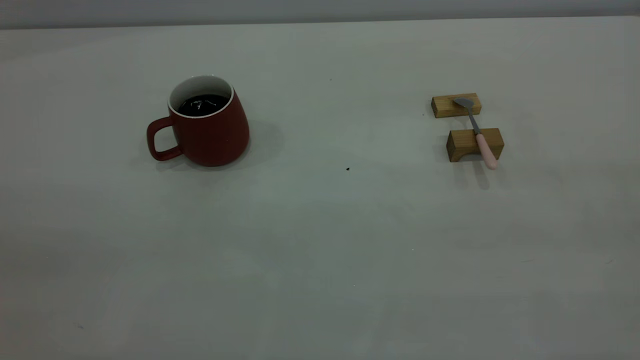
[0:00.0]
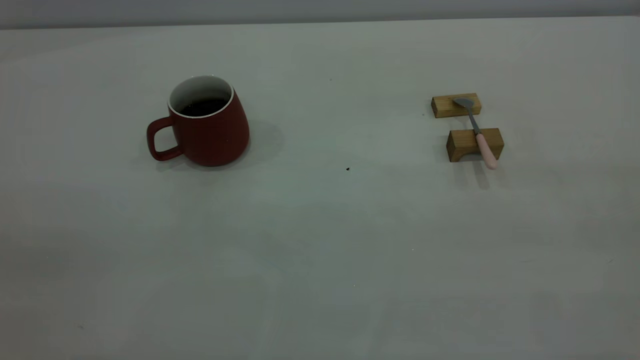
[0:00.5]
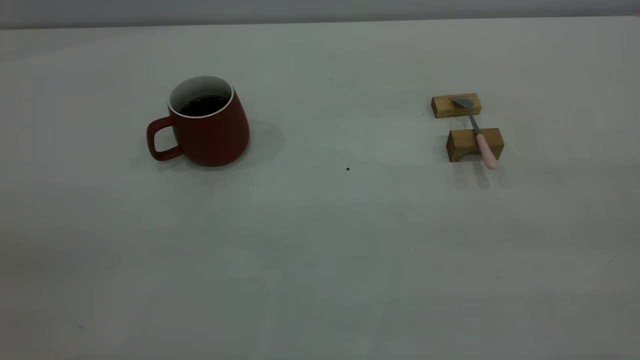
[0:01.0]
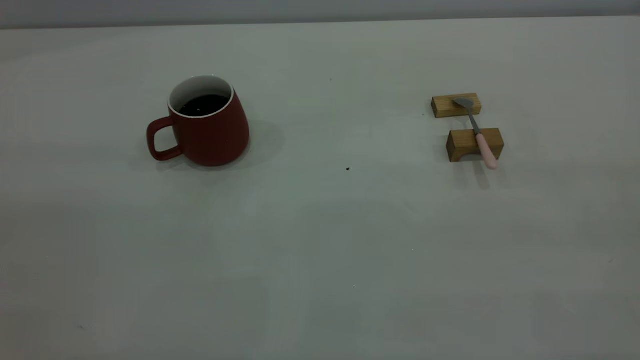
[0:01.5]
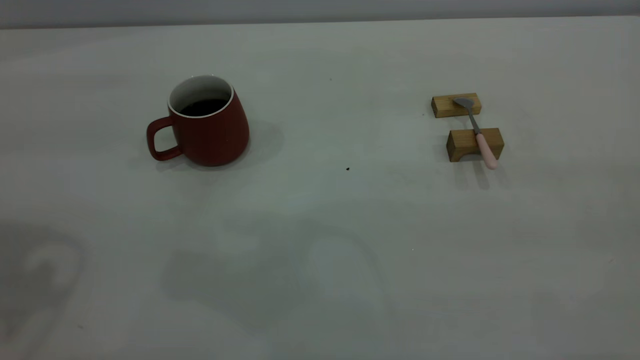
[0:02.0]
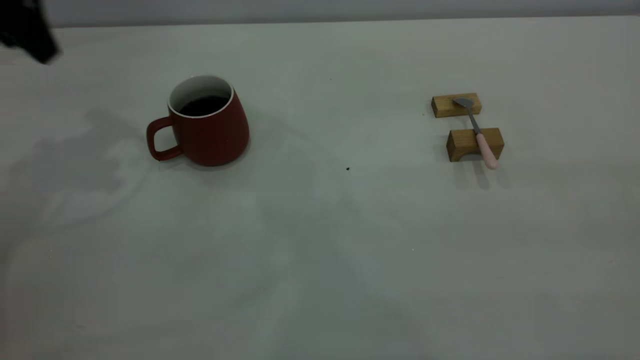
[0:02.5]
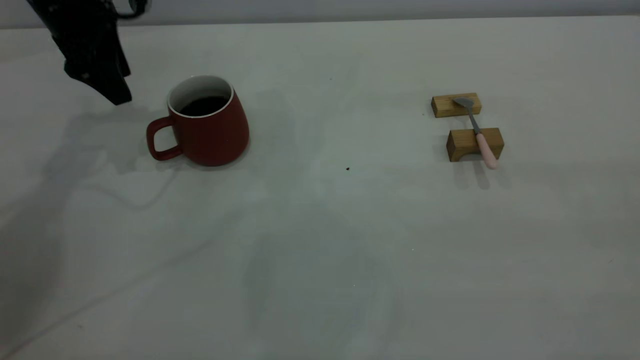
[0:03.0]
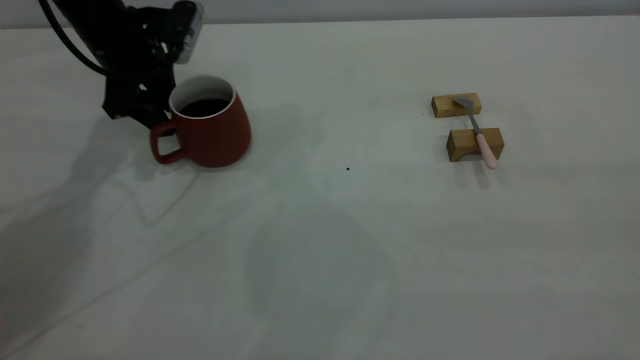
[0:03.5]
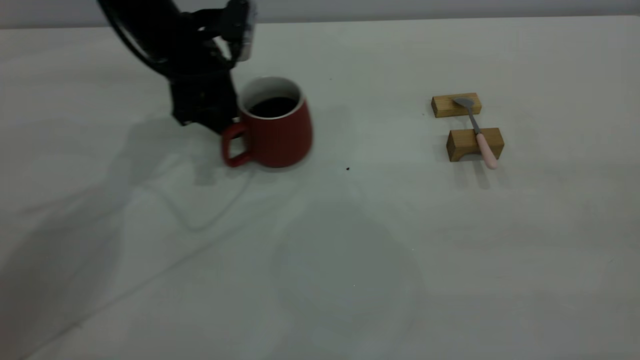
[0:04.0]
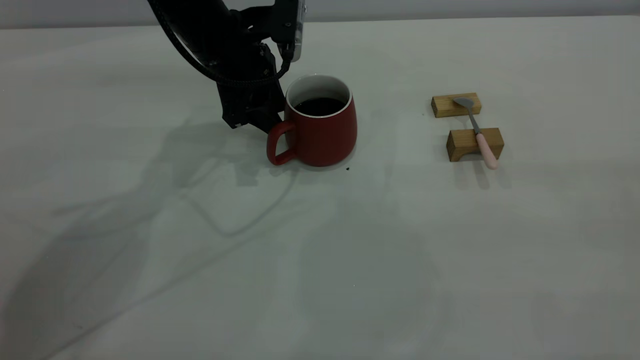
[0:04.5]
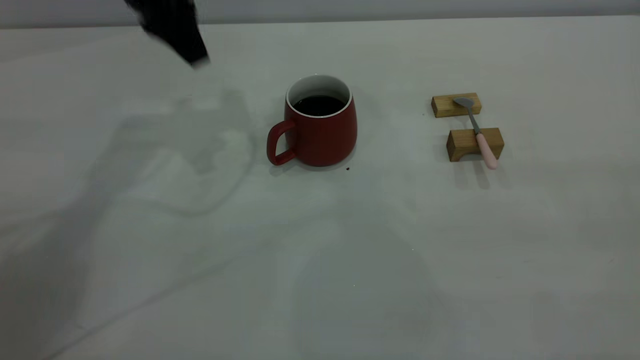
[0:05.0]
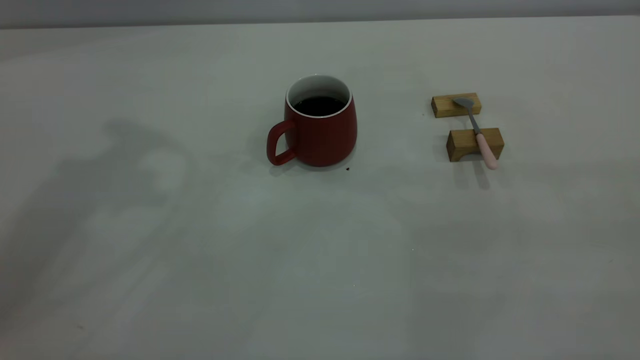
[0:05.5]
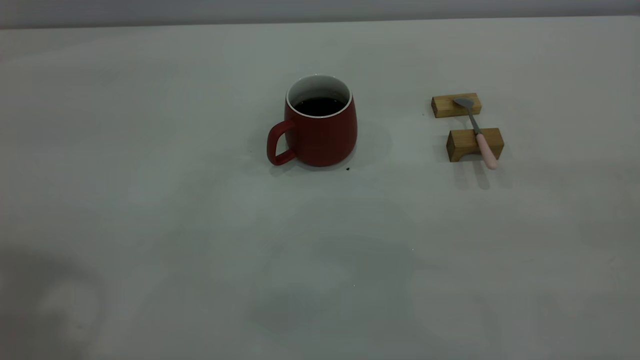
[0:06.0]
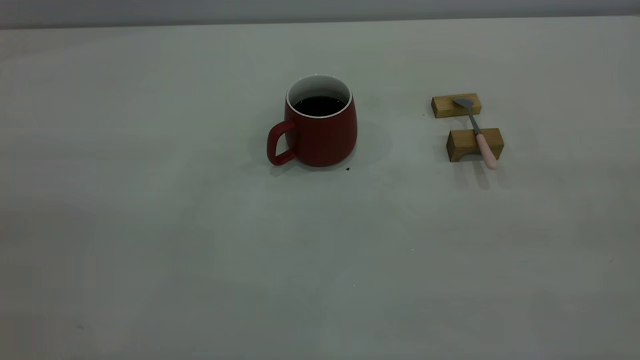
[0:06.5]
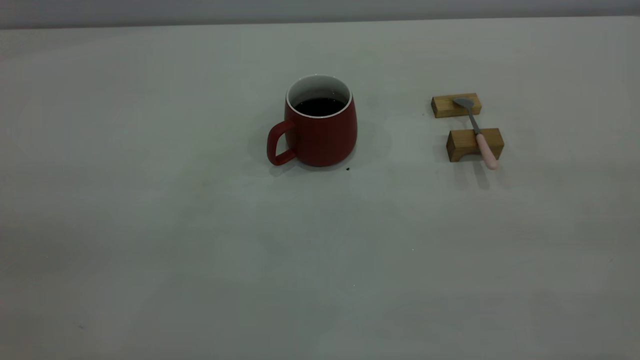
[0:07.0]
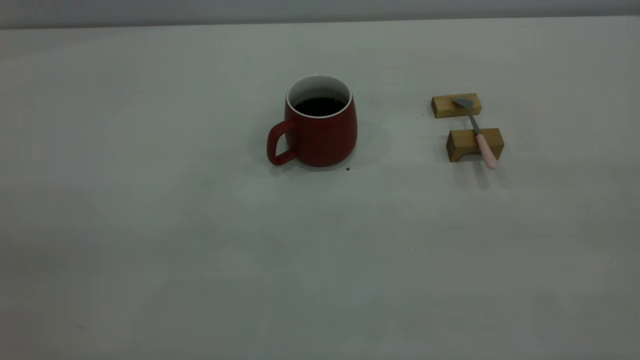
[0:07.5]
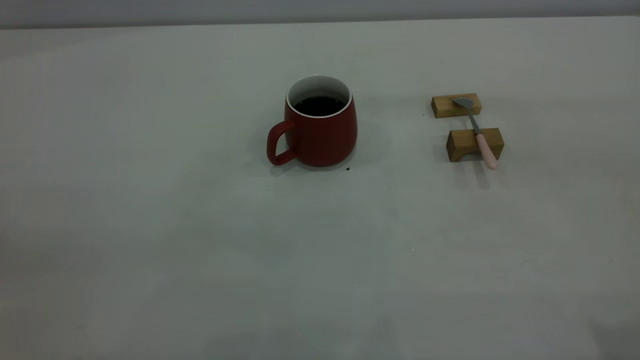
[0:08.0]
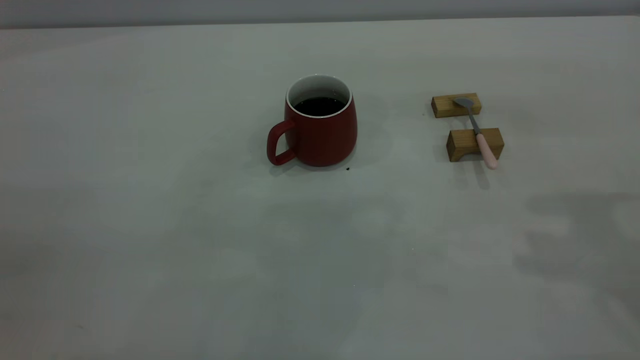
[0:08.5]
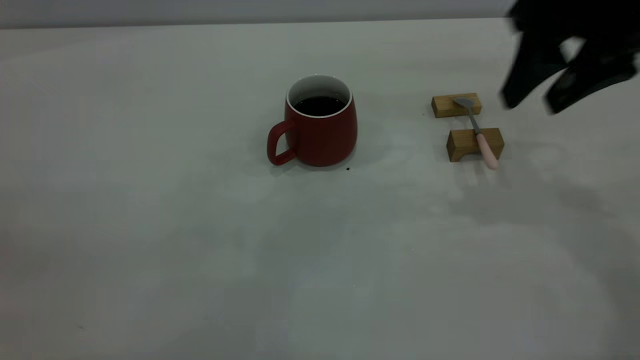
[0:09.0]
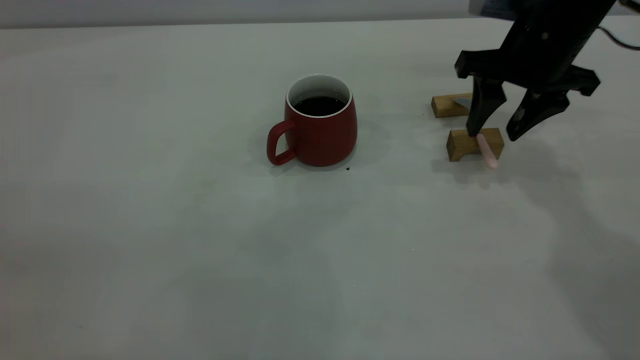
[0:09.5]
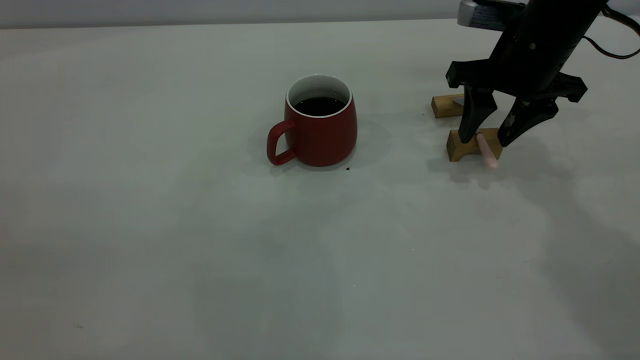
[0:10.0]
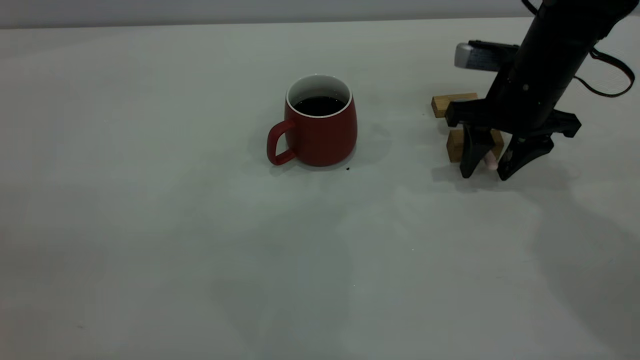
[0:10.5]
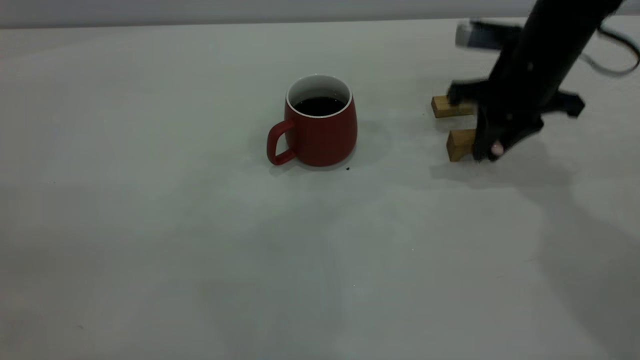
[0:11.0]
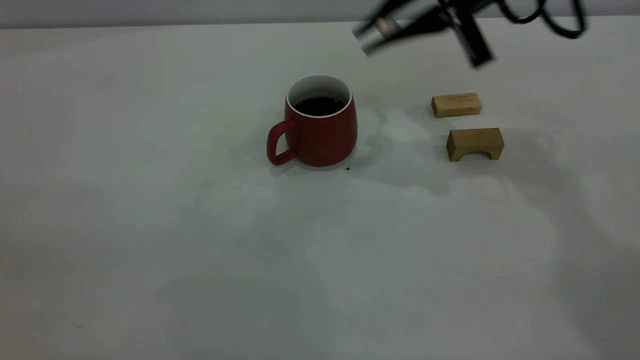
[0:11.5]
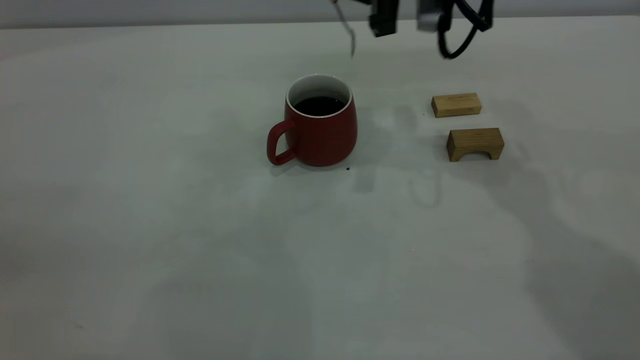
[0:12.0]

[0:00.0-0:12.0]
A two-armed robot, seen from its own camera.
Step, 0:00.0 to 0:04.5: Move the cup with coffee to the center of view.
Step, 0:05.0 to 0:11.0: Pick up the spoon.
0:02.0 to 0:04.0: The left gripper travels forward, downward and to the right by approximately 35 cm, and closes its fingers.
0:04.0 to 0:06.0: The left gripper moves upward and backward, roughly 40 cm.
0:08.0 to 0:10.0: The right gripper travels forward and downward by approximately 40 cm.
0:10.0 to 0:12.0: The right gripper is displaced to the left and upward by some 15 cm, and closes its fingers.

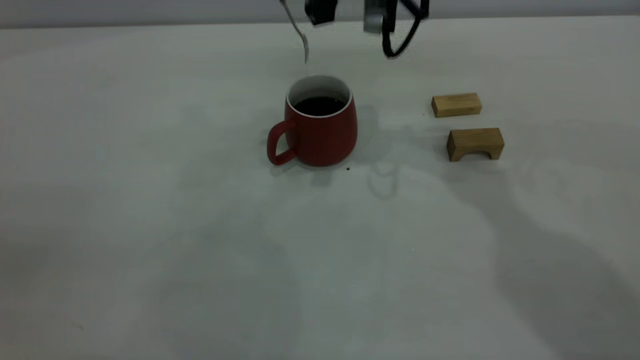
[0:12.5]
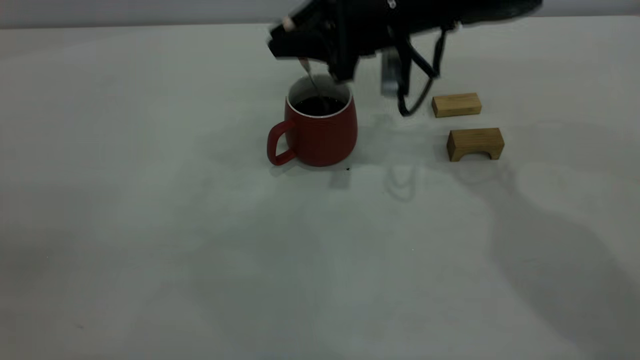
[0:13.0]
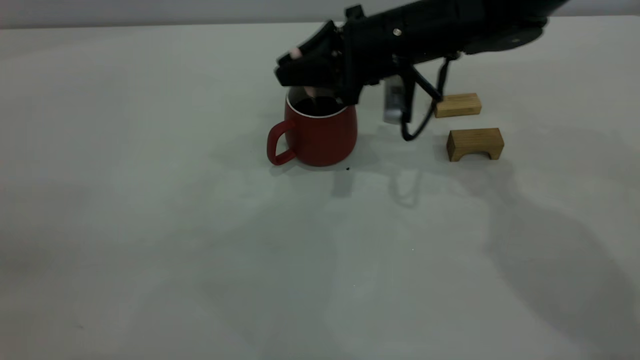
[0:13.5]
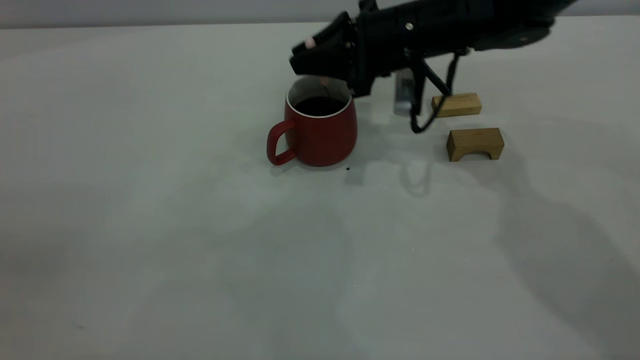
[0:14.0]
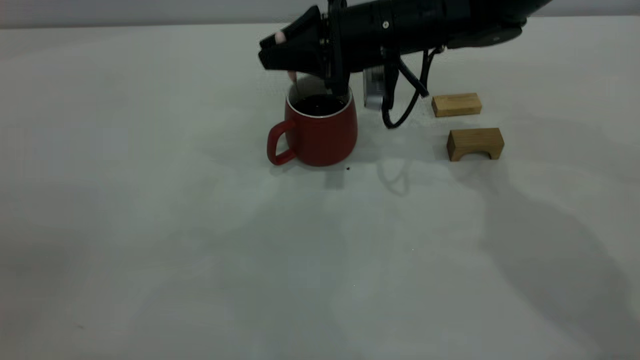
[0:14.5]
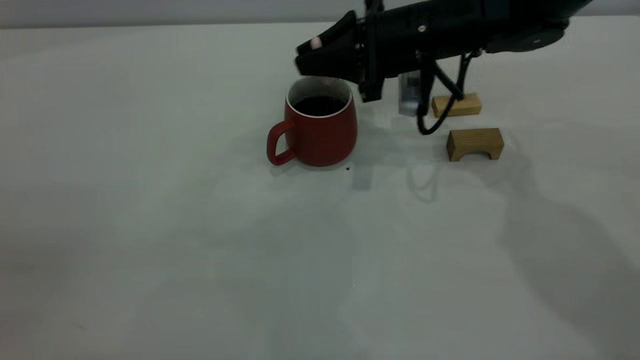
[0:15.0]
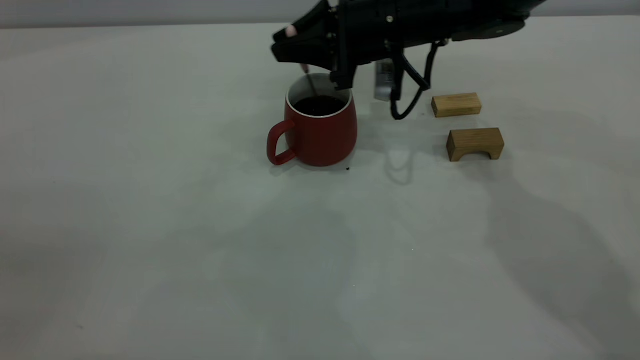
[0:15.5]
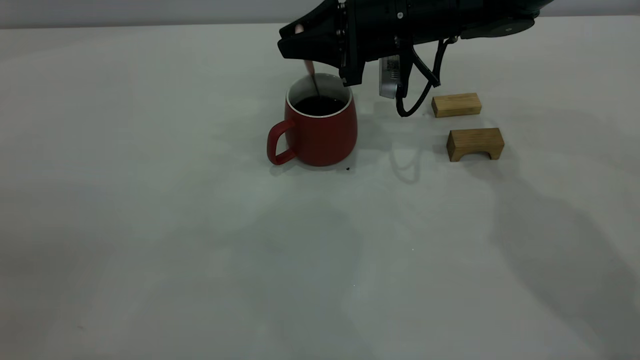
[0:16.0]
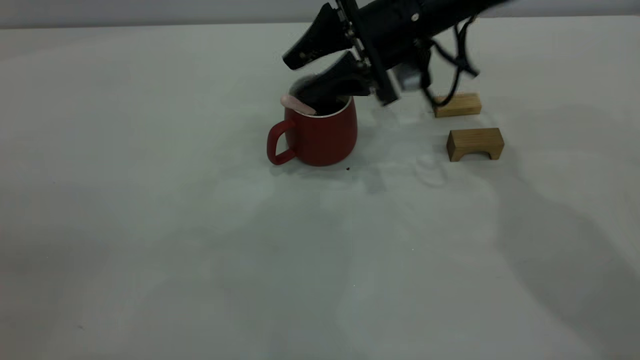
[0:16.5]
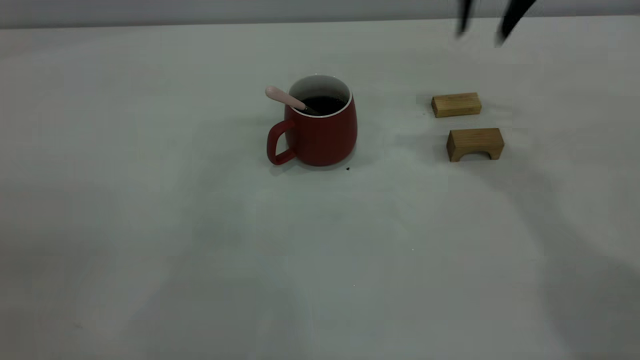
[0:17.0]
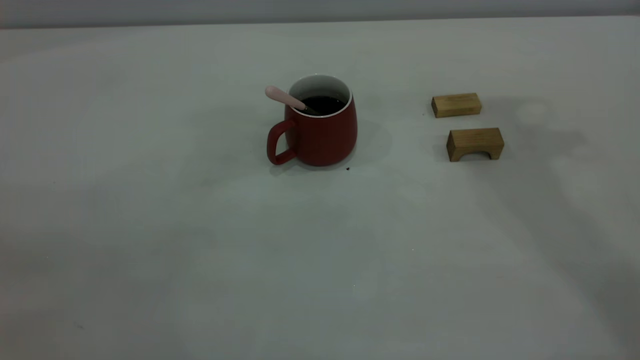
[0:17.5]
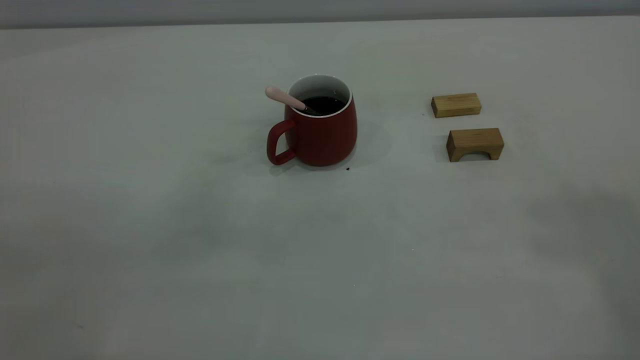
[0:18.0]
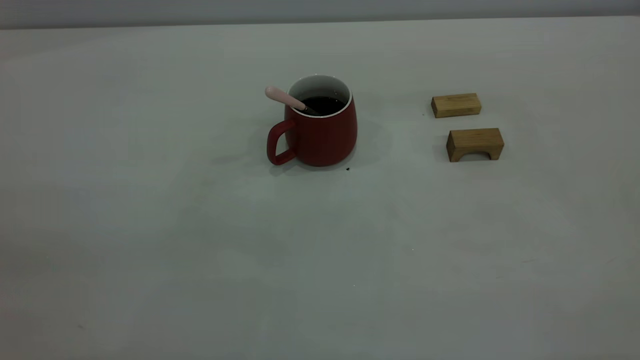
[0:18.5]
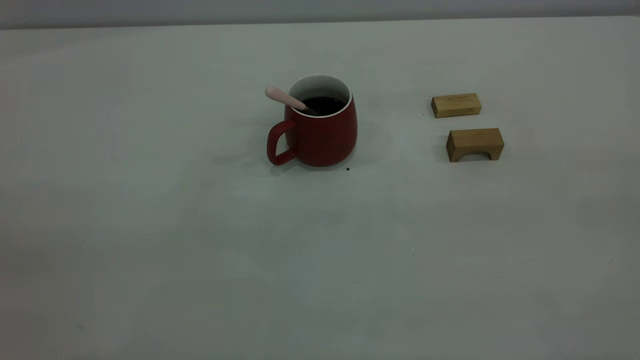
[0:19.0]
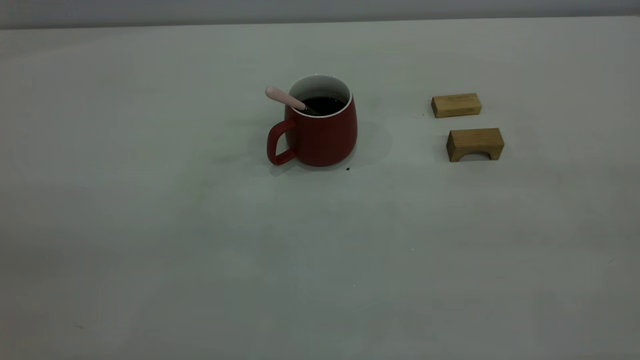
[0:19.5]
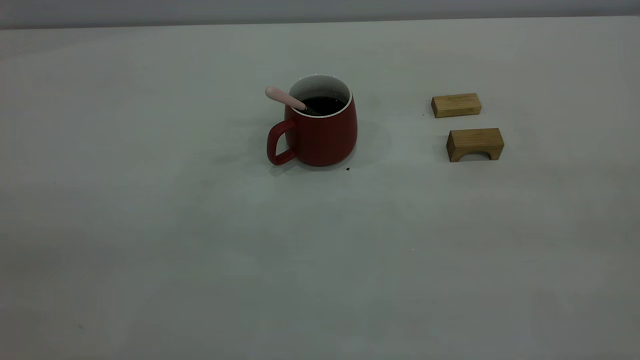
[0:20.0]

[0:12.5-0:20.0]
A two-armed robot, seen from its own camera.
Step, 0:12.5 to 0:16.5: Stir the coffee in the cup.
0:12.5 to 0:14.5: The right gripper goes roughly 10 cm downward.
0:14.5 to 0:16.5: The right gripper opens up.
0:16.5 to 0:18.0: The right gripper heads upward and backward, covering approximately 50 cm, and closes up.
